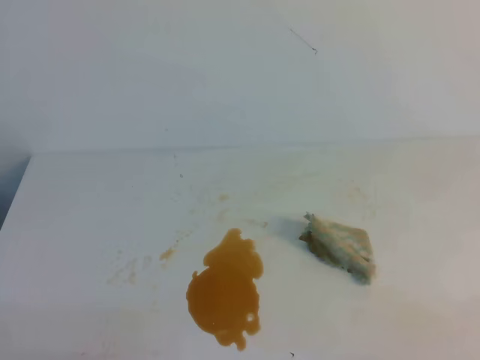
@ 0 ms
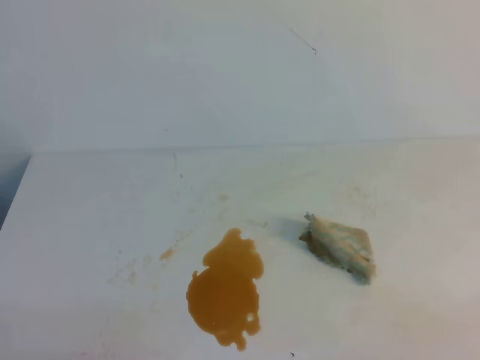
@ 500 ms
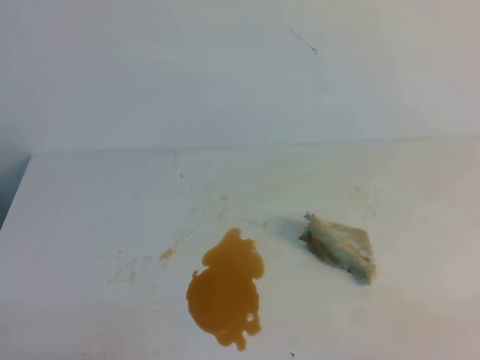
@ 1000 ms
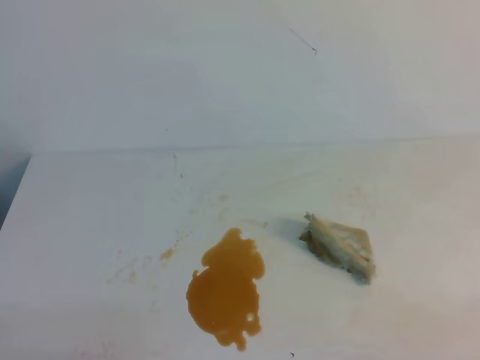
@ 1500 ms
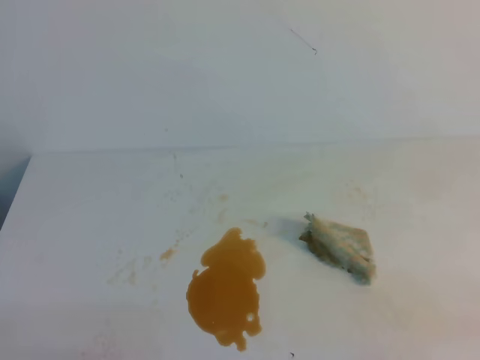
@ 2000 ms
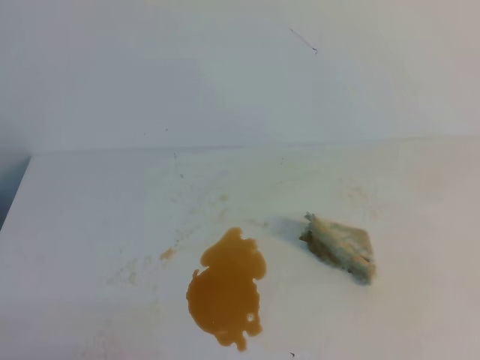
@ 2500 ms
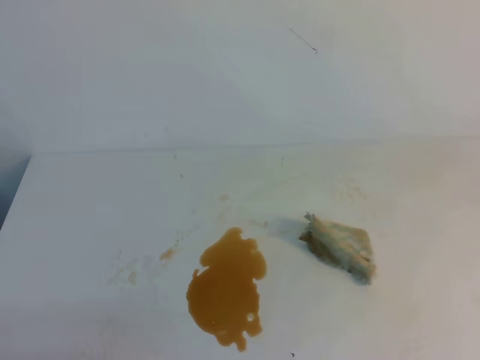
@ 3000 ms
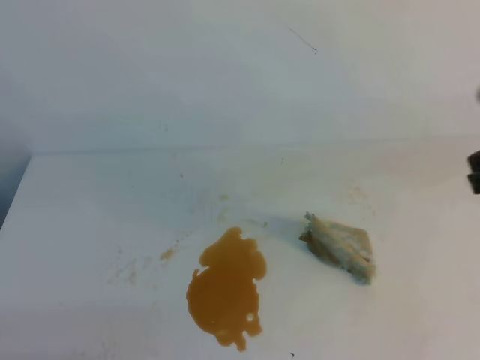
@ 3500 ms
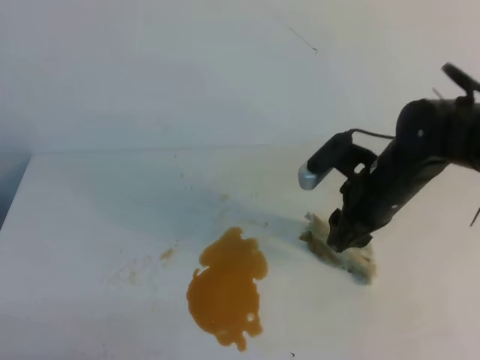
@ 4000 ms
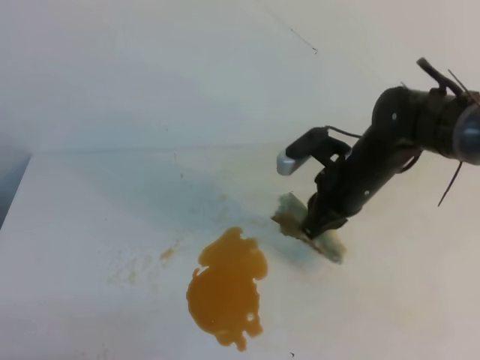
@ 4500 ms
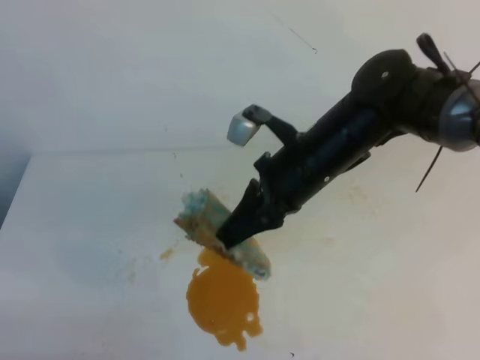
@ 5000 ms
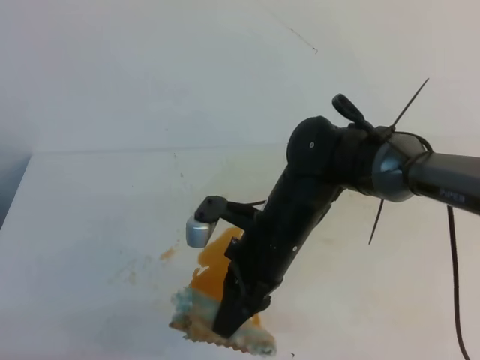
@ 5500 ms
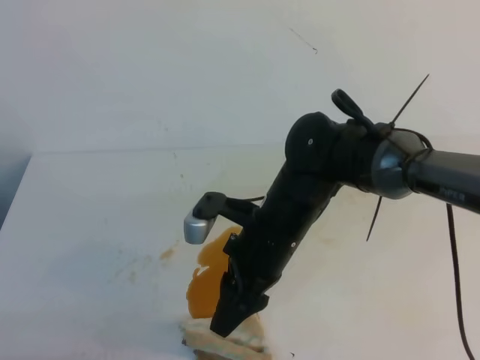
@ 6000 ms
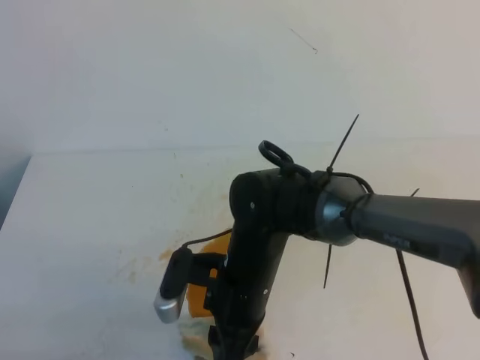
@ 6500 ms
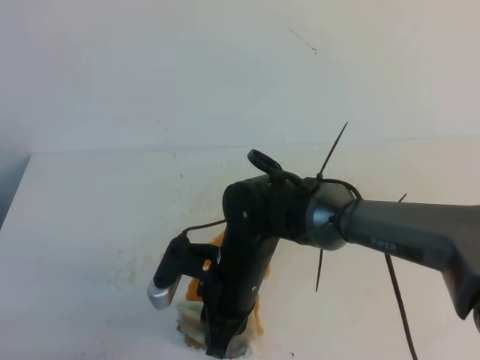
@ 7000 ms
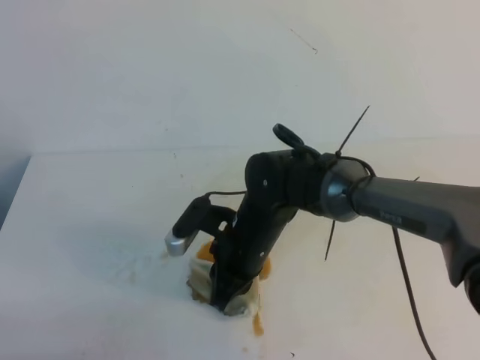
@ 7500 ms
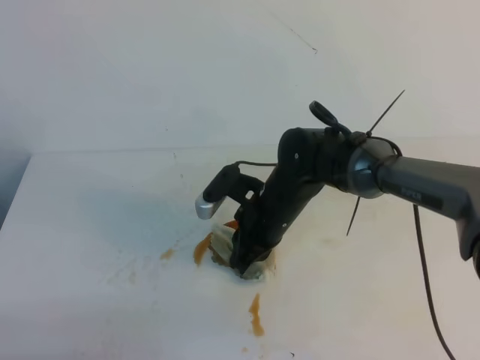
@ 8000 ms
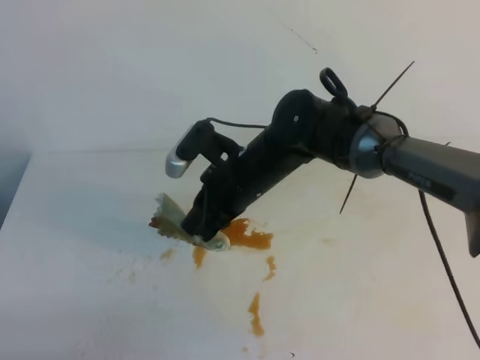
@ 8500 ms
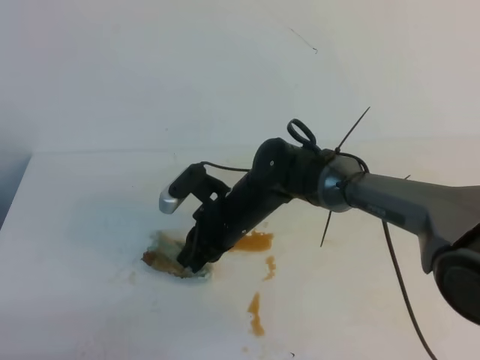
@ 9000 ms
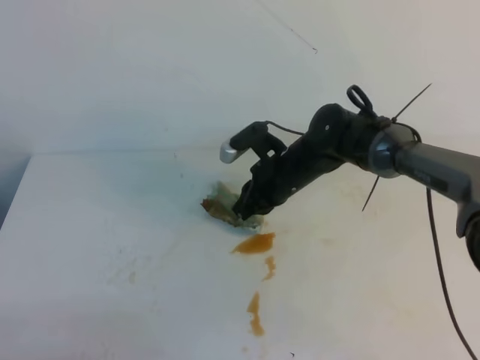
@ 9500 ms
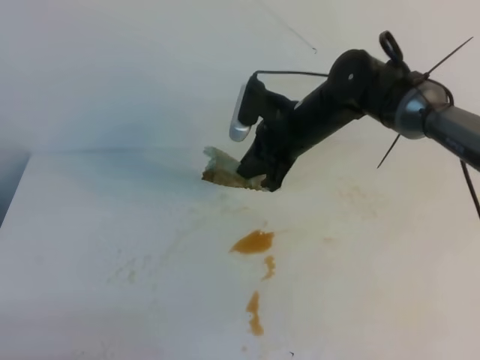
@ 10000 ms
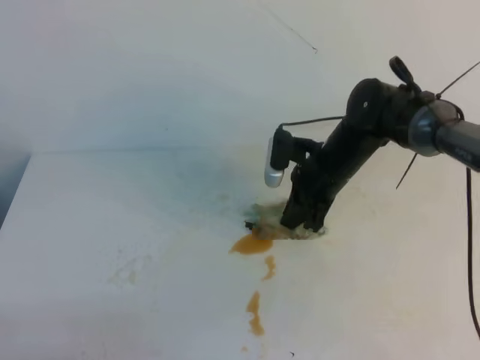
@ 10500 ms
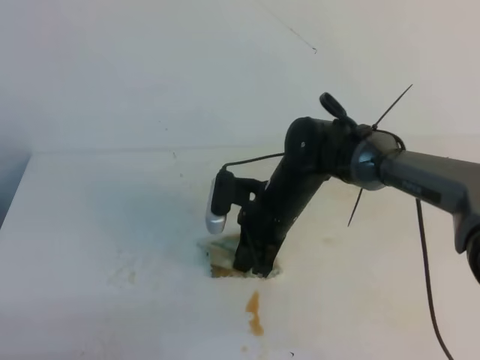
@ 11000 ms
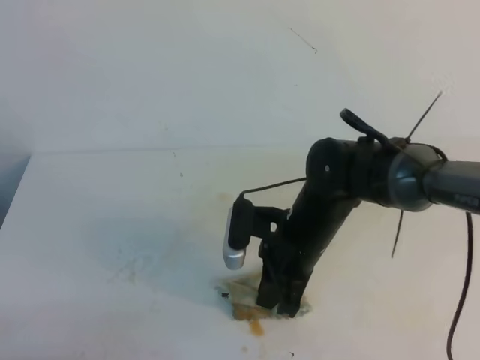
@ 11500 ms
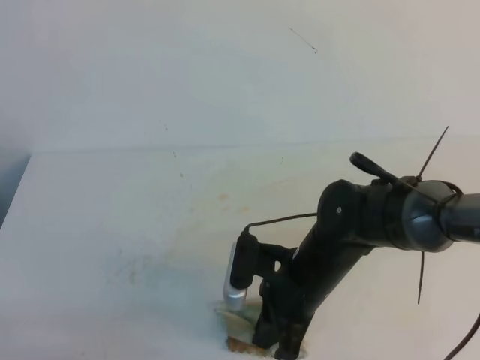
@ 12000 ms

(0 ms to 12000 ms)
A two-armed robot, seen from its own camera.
2000 ms - 4000 ms: The right gripper moves forward and to the left, approximately 35 cm, and opens up.
4000 ms - 6000 ms: The right gripper heads to the left and backward, covering roughly 15 cm, and closes, then opens again.
6000 ms - 8000 ms: The right gripper shifts roughly 10 cm forward and downward, and closes.
8000 ms - 10000 ms: The right gripper travels forward and upward by roughly 10 cm.
10000 ms - 12000 ms: The right gripper travels backward by some 15 cm.

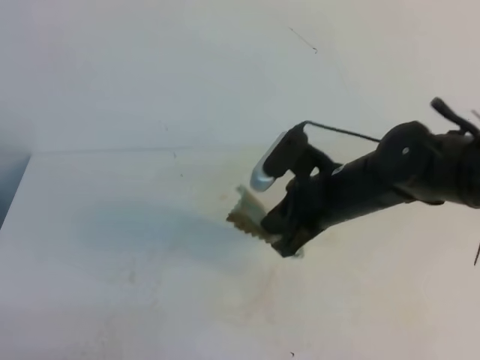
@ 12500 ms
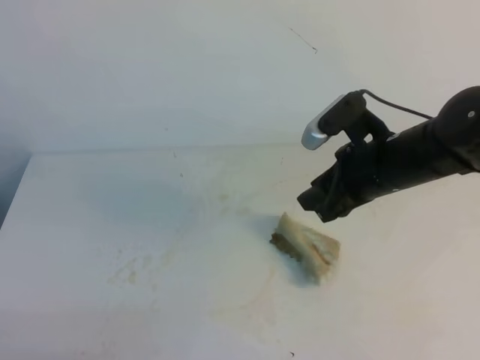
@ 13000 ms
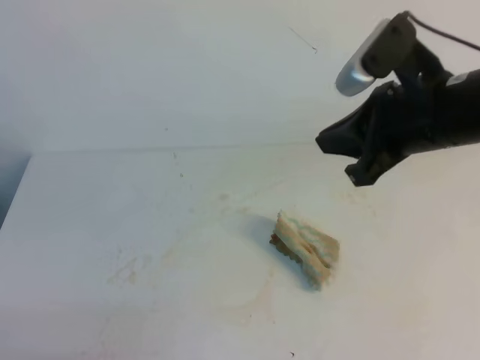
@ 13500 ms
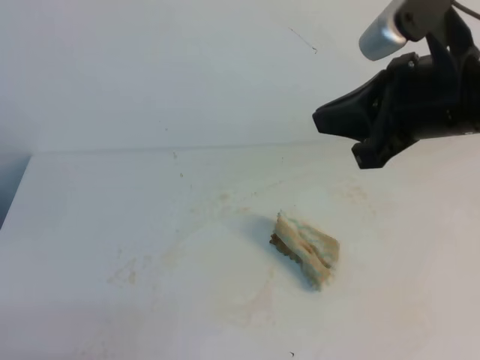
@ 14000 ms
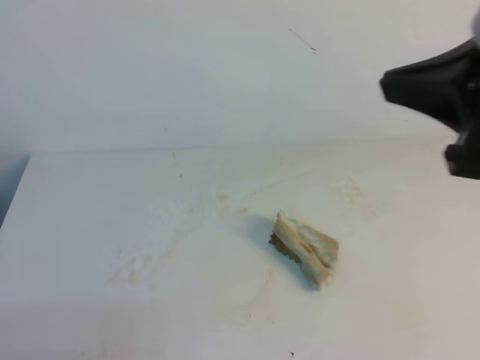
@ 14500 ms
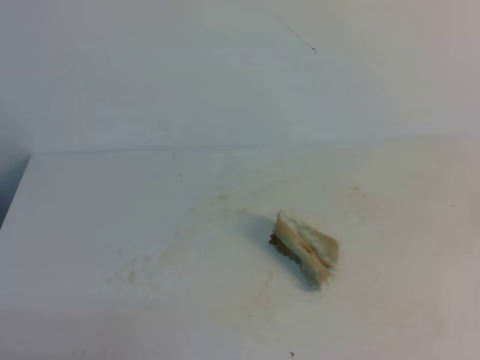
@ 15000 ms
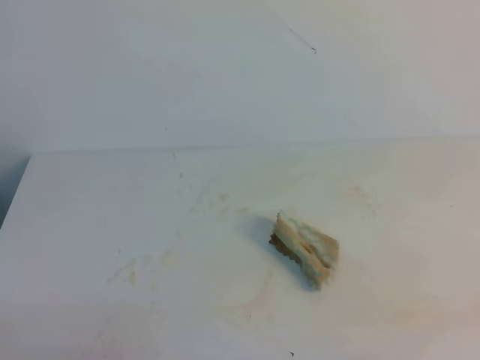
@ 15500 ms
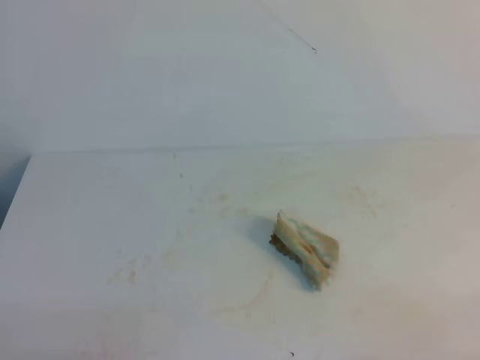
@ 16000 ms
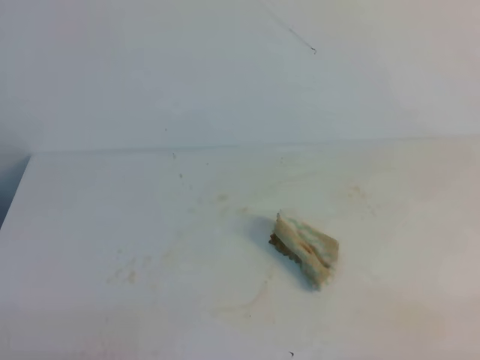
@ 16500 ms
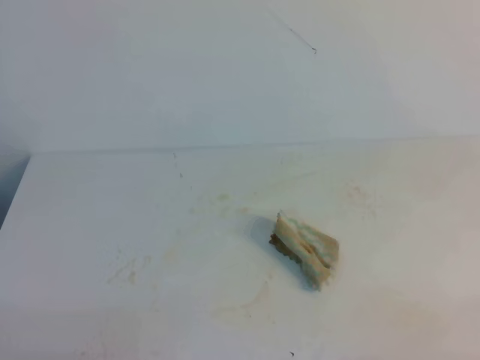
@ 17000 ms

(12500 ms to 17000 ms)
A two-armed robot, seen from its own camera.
12500 ms - 14500 ms: The right gripper goes about 25 cm upward, to the right and backward, and opens, then closes again.
14500 ms - 17000 ms: The right gripper travels downward, backward and to the right by roughly 30 cm.
